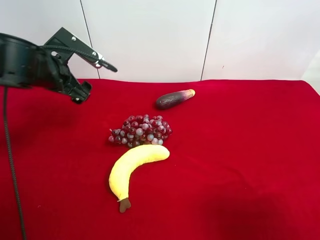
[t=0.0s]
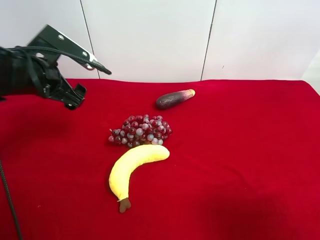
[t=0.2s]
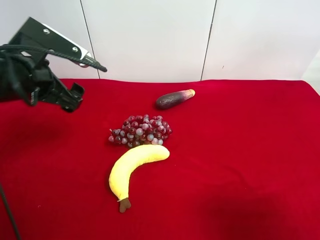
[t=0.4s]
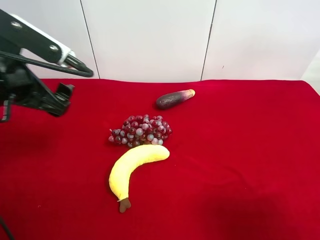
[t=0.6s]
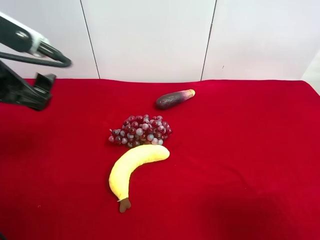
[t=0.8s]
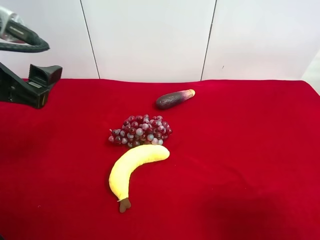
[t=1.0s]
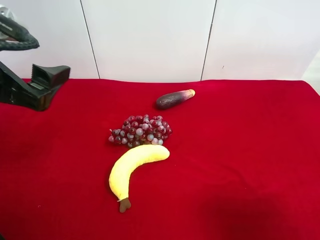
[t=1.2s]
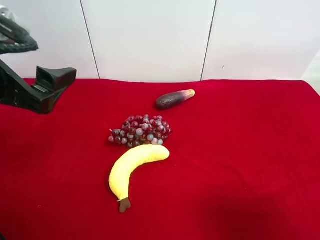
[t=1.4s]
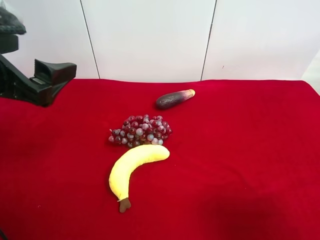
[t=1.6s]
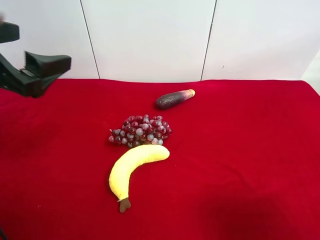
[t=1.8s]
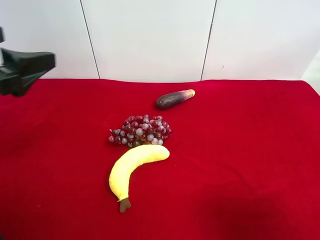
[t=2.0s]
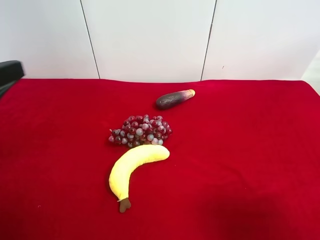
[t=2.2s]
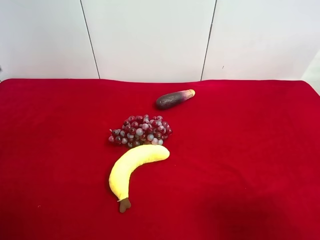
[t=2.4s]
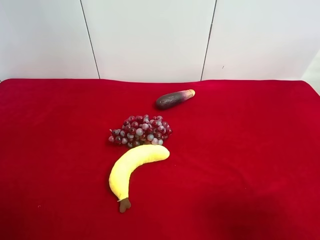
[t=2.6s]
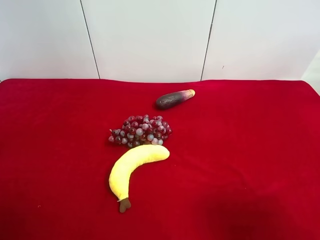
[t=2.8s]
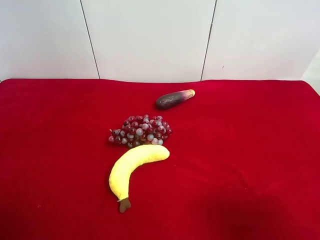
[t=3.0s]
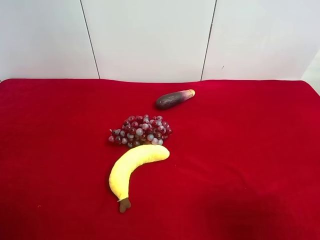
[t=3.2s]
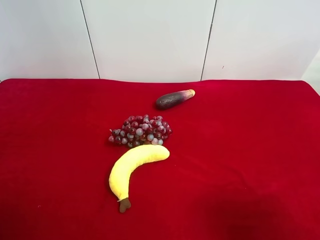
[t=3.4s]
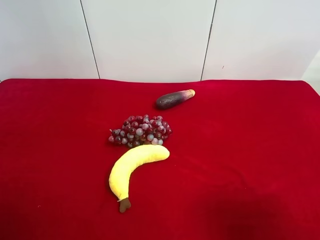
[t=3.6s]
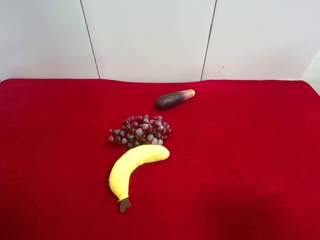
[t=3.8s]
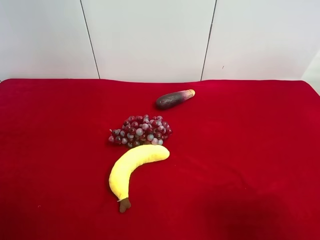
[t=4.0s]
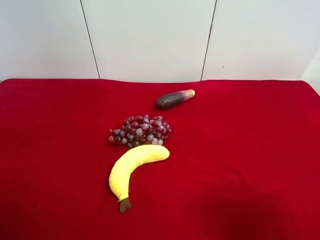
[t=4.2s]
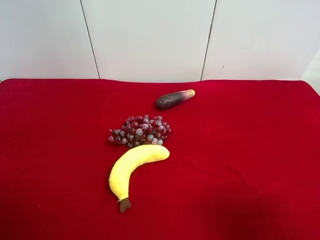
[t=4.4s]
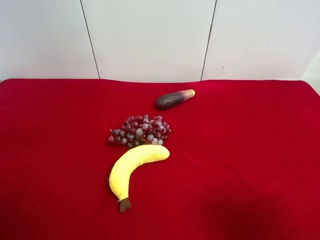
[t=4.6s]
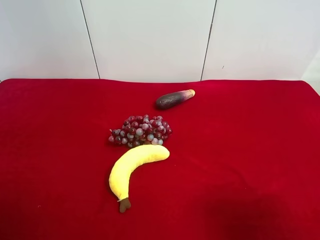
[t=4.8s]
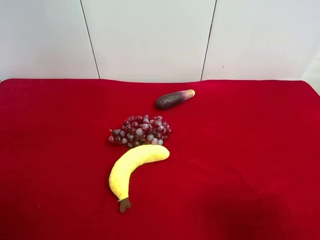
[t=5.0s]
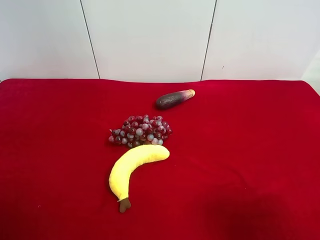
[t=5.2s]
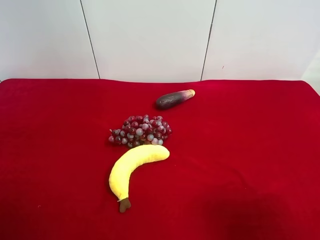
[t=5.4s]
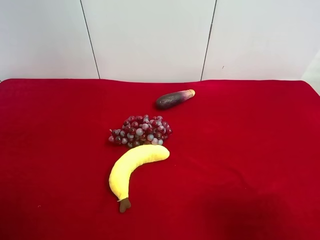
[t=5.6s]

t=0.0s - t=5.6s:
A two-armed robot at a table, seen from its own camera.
Task of the whole recording: use the right gripper to pick up the item and transfer it from the right gripper to the left gripper.
t=0.0s - t=1.4s: The left gripper travels backward and upward by some 20 cm.
t=1.4s - t=2.8s: The left gripper is displaced to the left and backward by roughly 10 cm.
